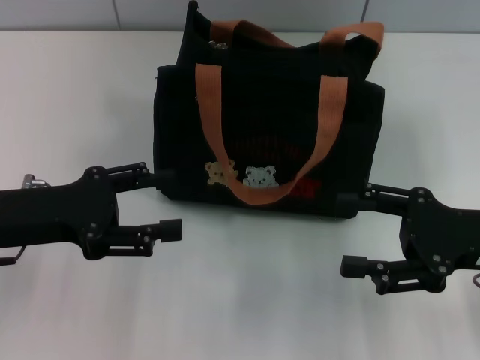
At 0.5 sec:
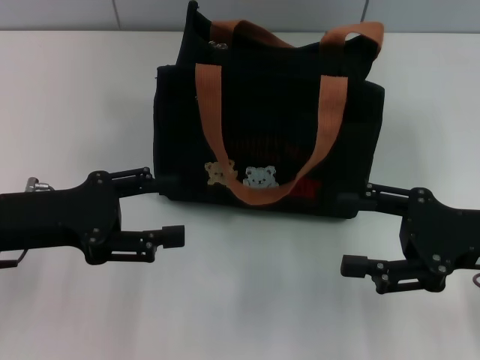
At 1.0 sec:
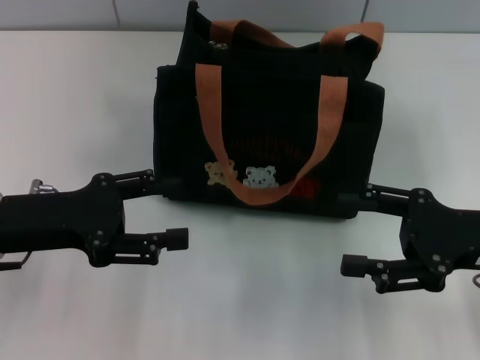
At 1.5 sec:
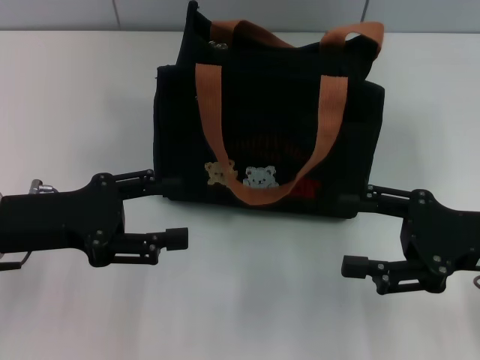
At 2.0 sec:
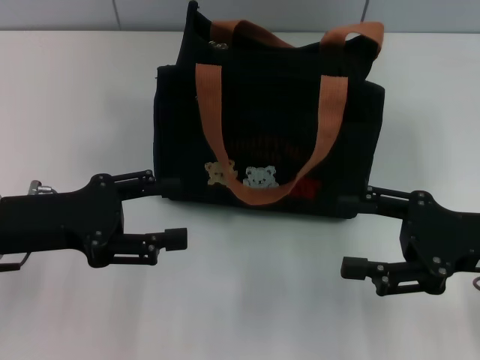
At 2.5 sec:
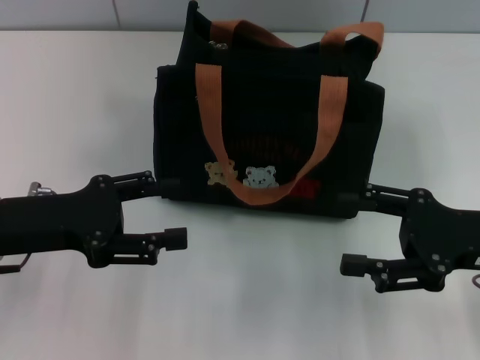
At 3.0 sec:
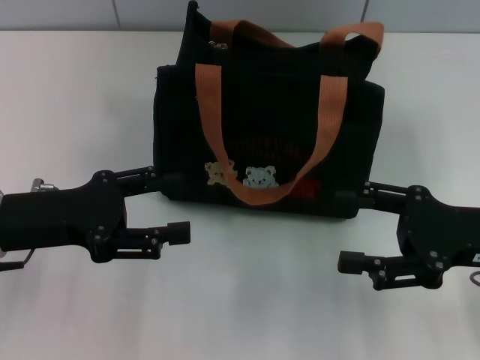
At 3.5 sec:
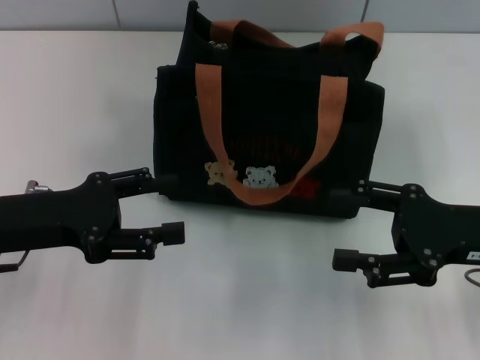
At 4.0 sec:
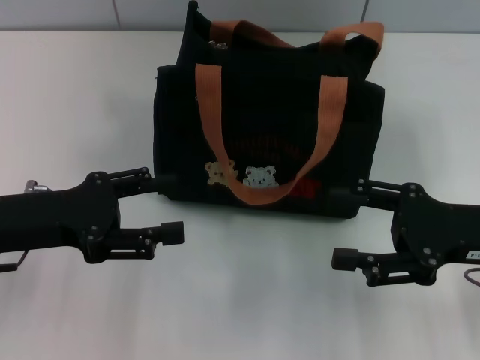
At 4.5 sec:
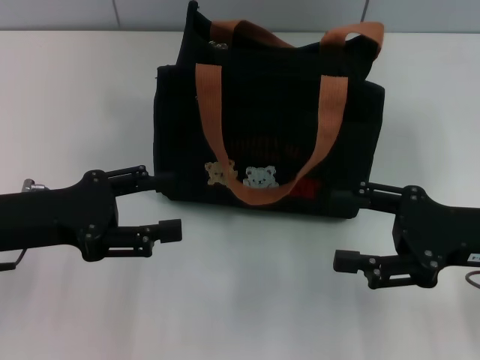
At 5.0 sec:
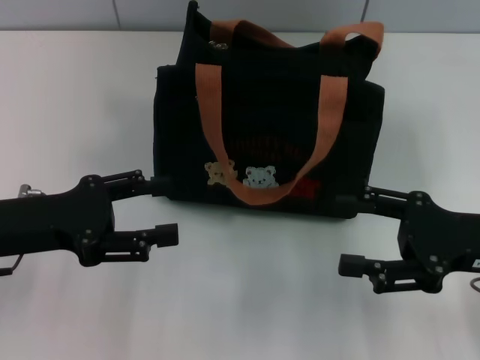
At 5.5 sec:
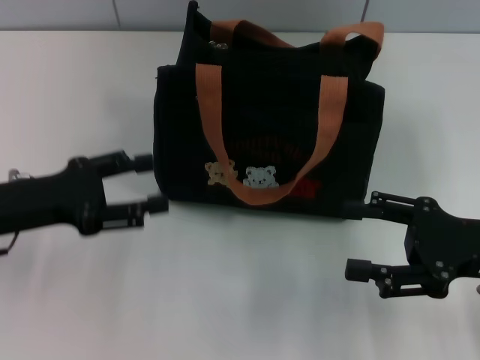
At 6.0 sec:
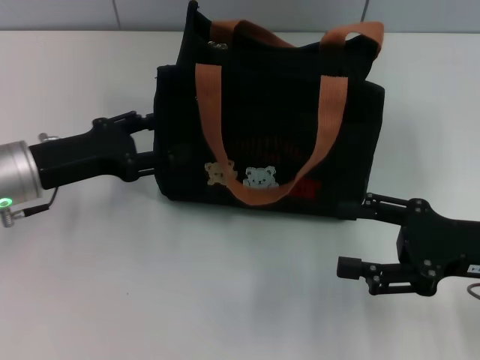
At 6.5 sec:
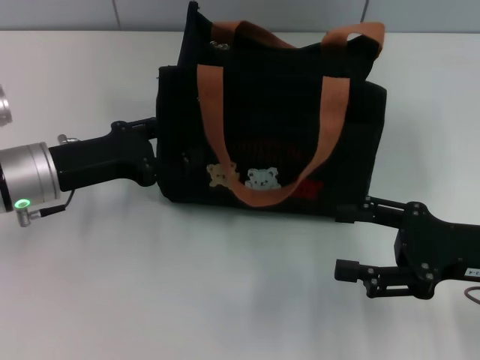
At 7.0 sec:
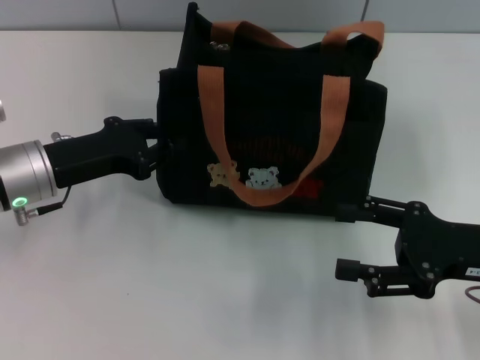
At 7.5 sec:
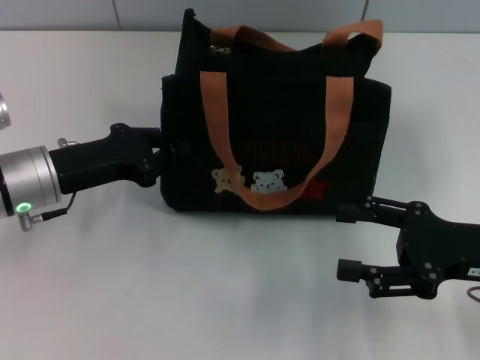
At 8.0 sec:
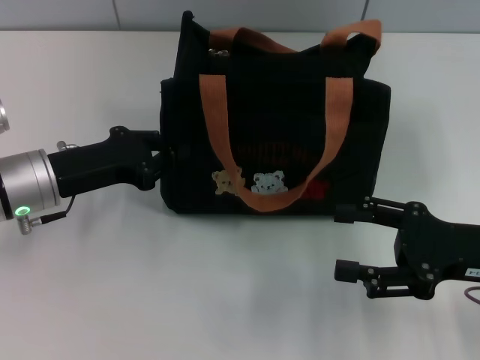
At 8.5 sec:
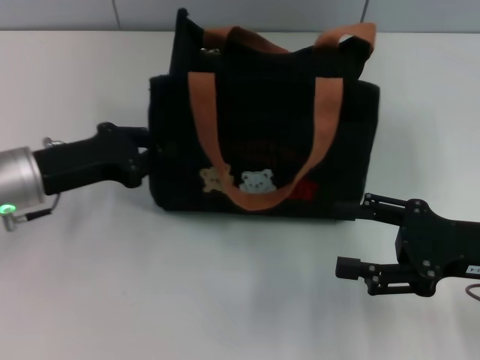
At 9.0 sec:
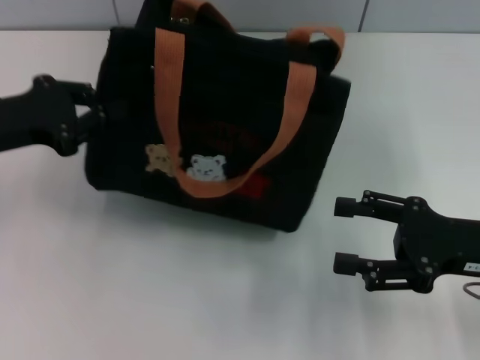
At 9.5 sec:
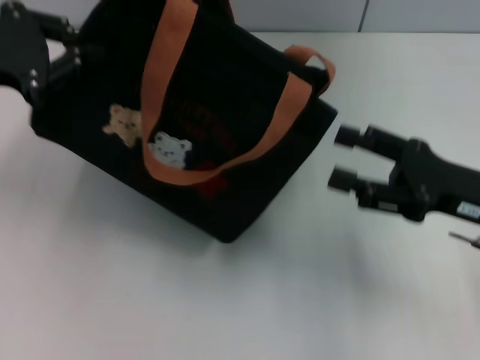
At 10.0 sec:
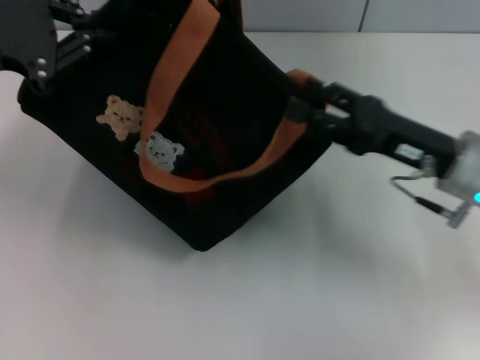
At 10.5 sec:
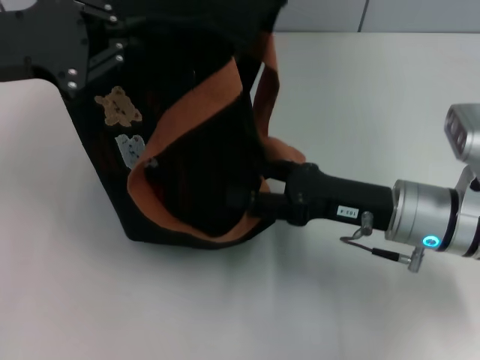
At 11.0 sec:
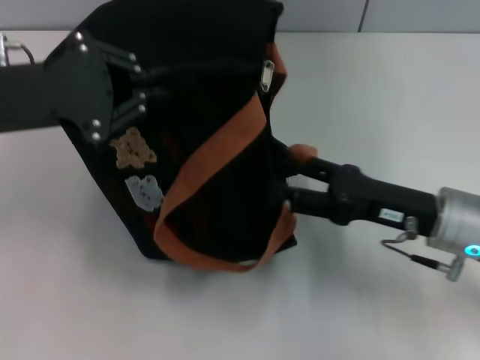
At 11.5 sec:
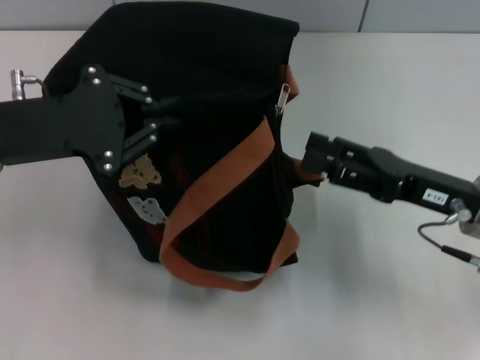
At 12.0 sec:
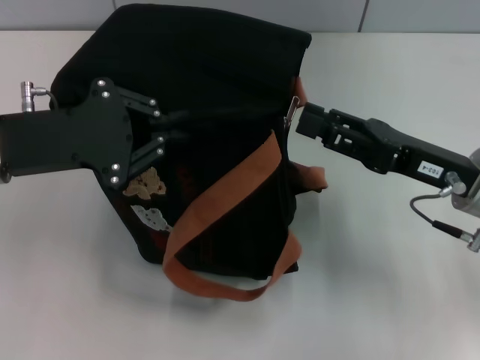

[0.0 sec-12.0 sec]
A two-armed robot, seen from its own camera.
0.0 sec to 4.0 sec: Both grippers stay about where they are.
4.0 sec to 6.0 sec: The left gripper moves forward, approximately 5 cm.
6.0 sec to 8.0 sec: The left gripper closes its fingers.
8.0 sec to 10.0 sec: The right gripper shifts about 10 cm forward and to the left. Meanwhile the left gripper goes some 15 cm upward.
10.0 sec to 12.0 sec: The left gripper goes about 5 cm downward.

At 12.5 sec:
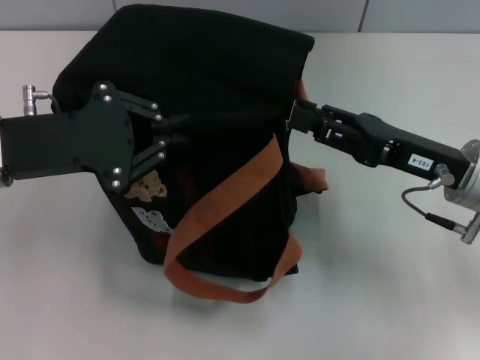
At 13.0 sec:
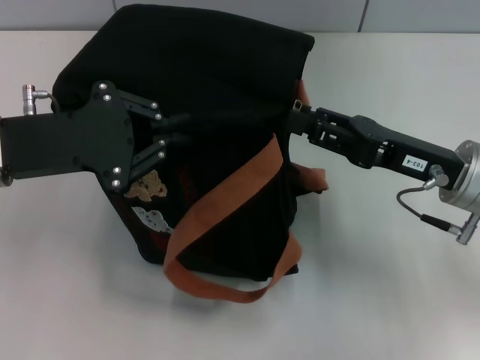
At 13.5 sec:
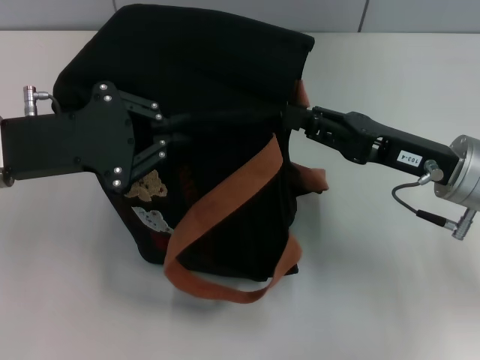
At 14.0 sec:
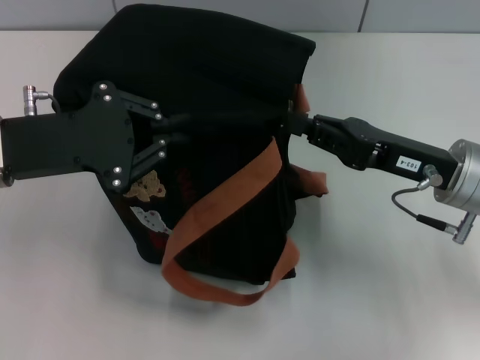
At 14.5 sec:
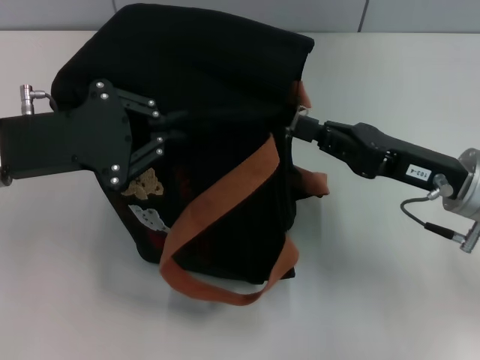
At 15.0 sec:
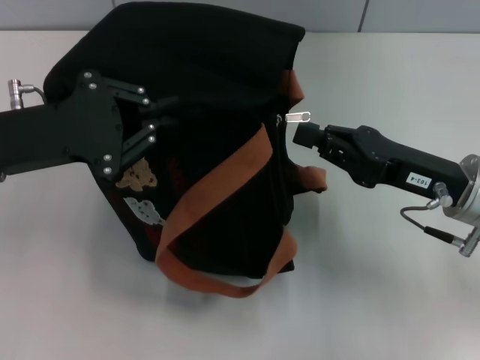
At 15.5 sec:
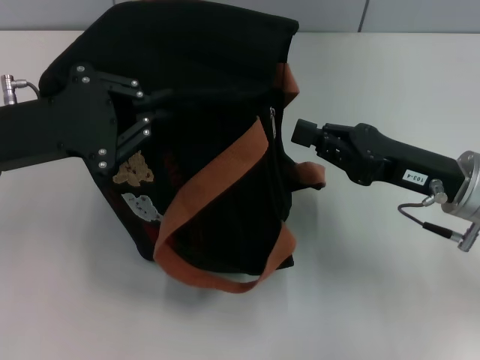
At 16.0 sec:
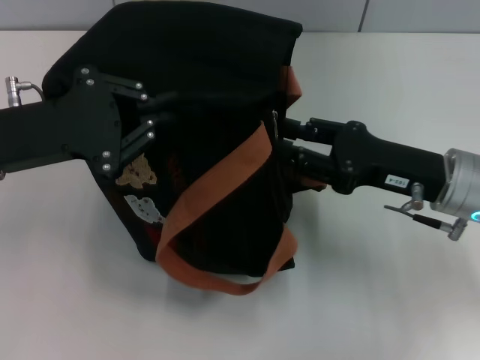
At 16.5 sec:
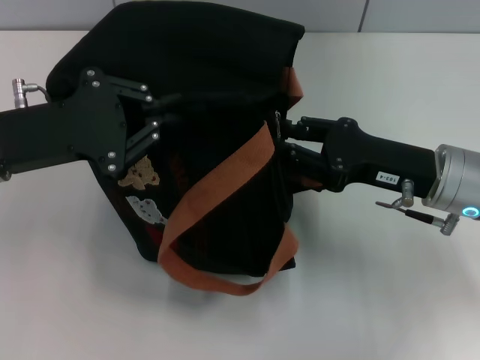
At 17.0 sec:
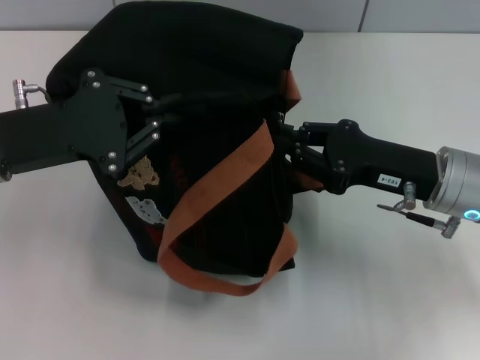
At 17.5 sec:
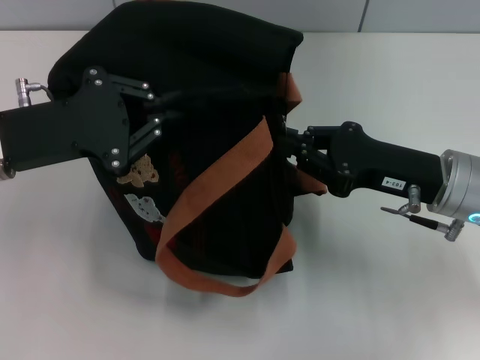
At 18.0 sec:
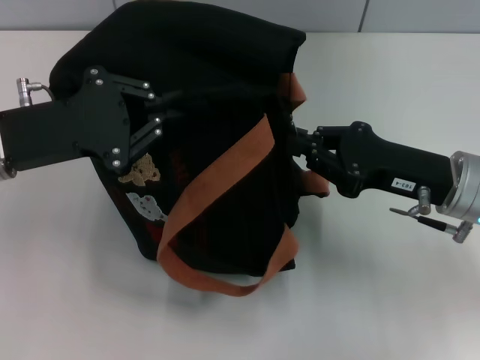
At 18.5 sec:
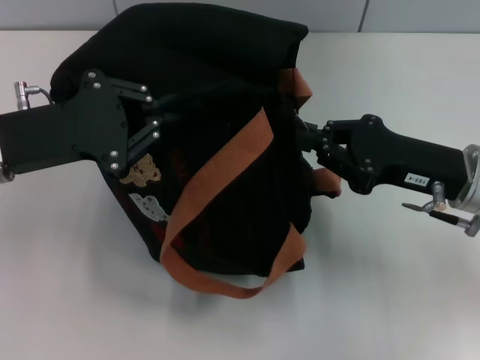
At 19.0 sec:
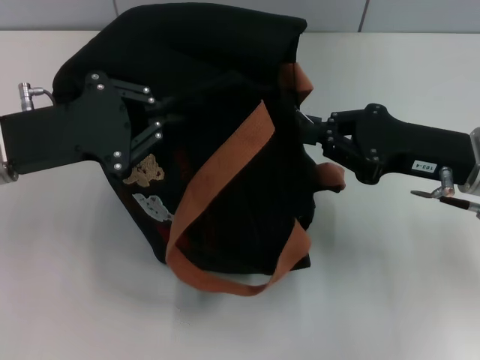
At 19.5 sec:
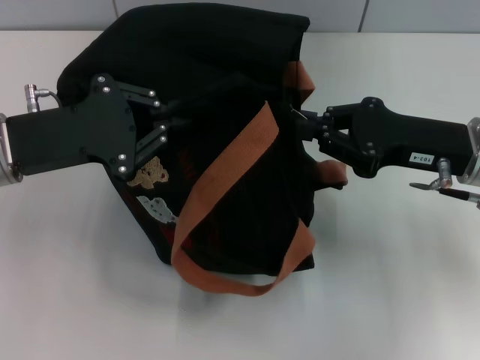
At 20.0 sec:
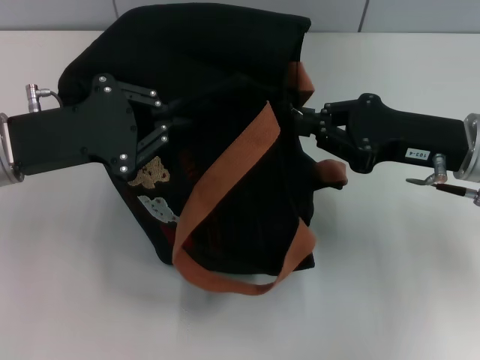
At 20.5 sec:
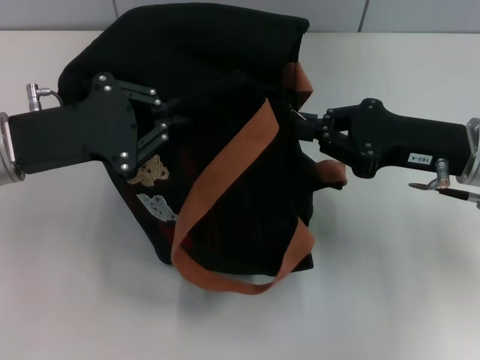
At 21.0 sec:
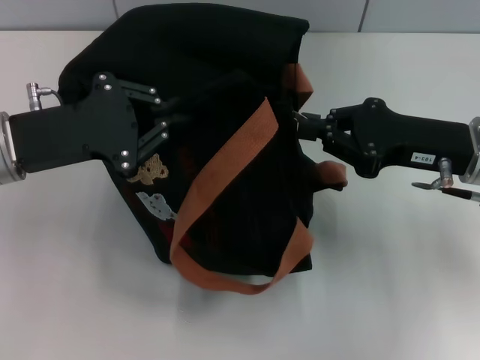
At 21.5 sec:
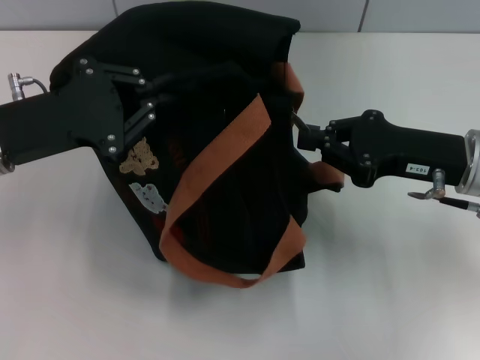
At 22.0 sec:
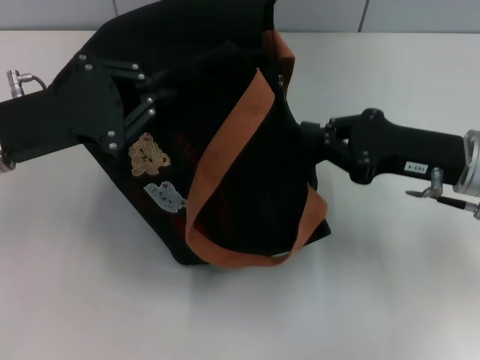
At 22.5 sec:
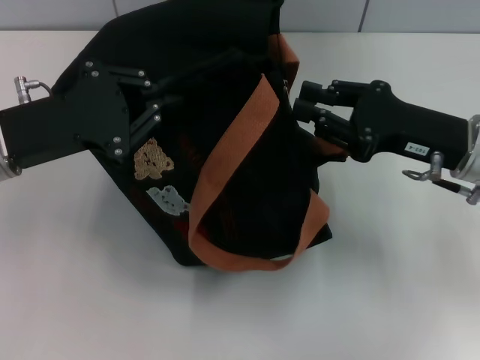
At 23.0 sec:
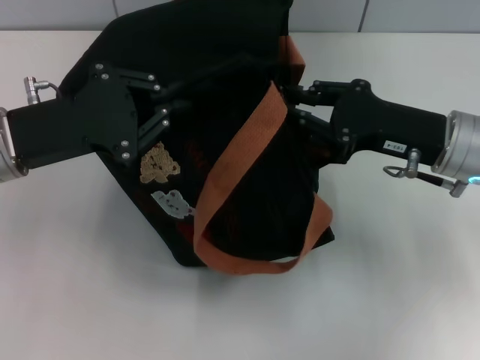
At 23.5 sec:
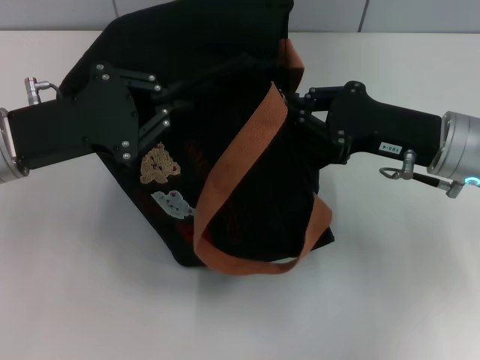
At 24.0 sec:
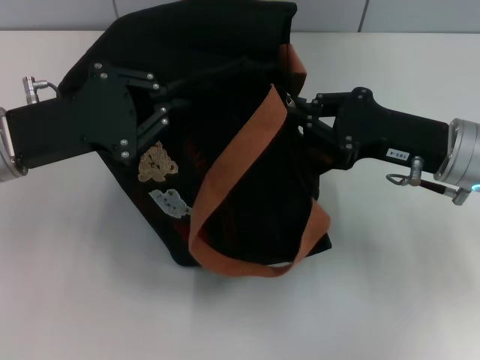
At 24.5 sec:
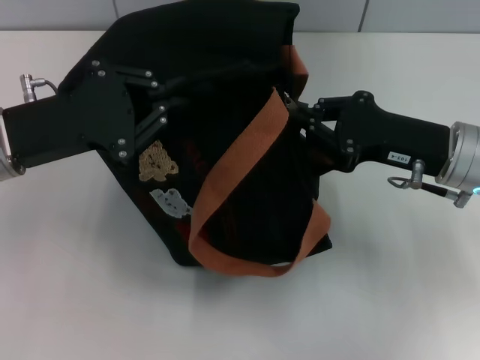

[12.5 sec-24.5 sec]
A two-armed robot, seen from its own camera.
12.5 sec to 14.5 sec: The right gripper closes.
14.5 sec to 16.5 sec: The right gripper opens up.
16.5 sec to 18.5 sec: The right gripper closes.
18.5 sec to 24.5 sec: There are only small adjustments of the grippers.

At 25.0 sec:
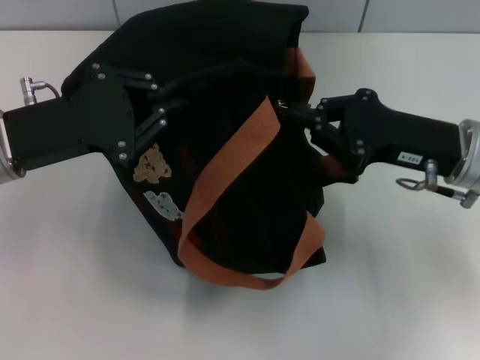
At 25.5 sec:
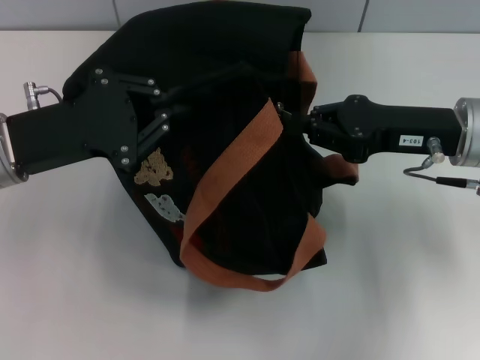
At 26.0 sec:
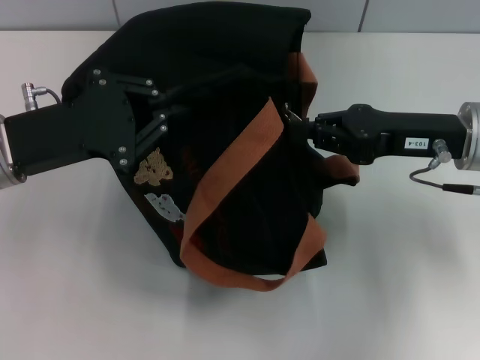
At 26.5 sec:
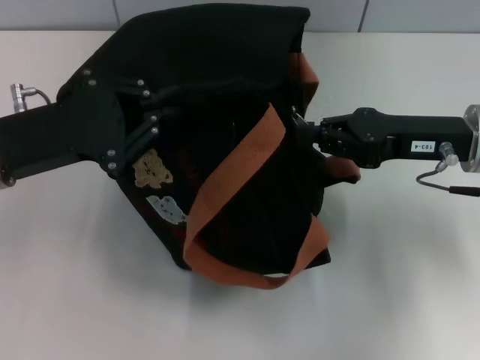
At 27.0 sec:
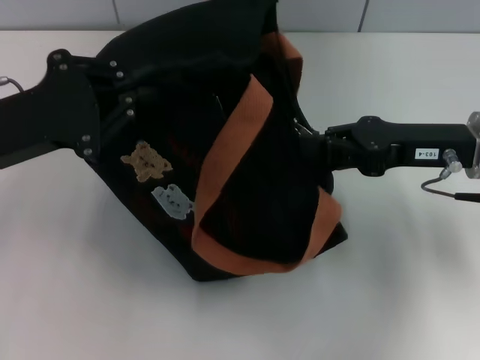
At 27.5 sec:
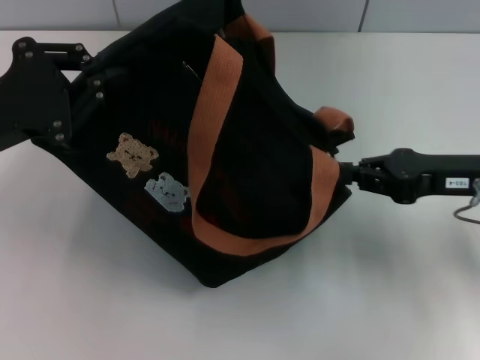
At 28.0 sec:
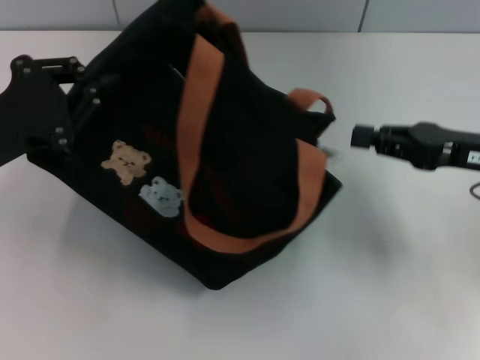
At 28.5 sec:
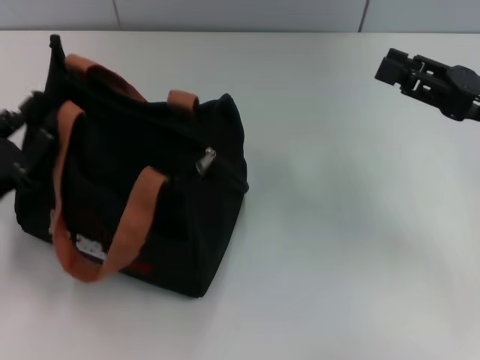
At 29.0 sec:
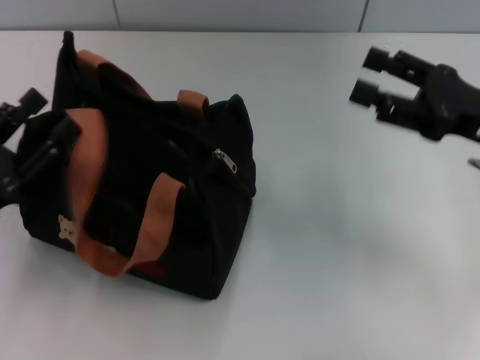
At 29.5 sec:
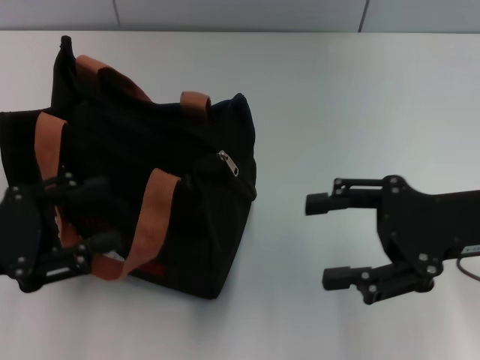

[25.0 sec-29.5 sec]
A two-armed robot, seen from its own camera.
Step, 25.0 sec to 27.5 sec: Pull open the zipper with your right hand.
27.0 sec to 29.5 sec: Both grippers move backward, approximately 5 cm. The right gripper opens up. The left gripper opens its fingers.
